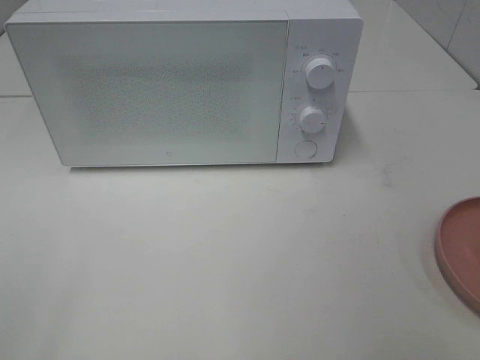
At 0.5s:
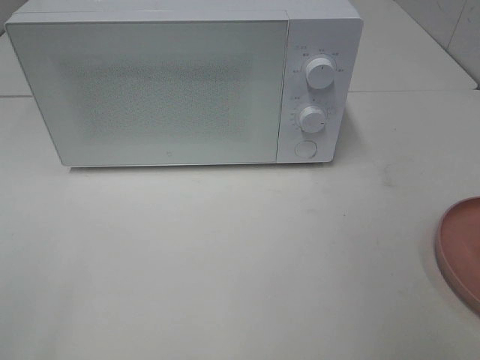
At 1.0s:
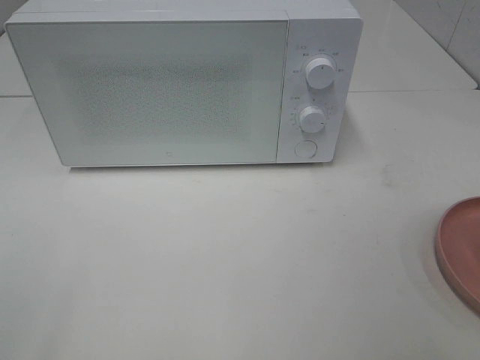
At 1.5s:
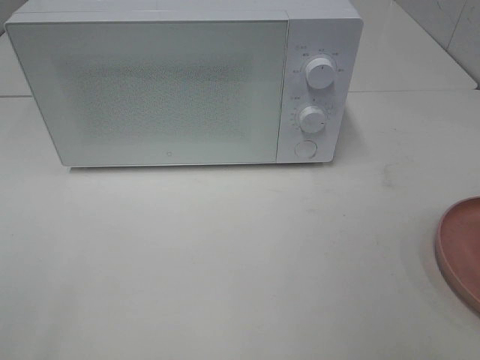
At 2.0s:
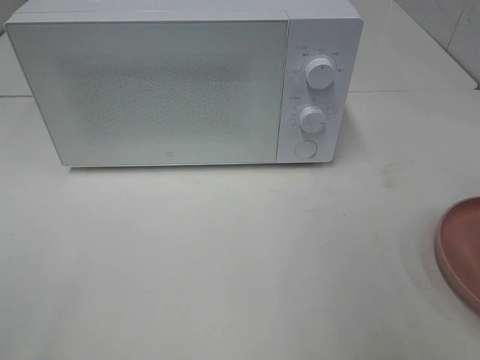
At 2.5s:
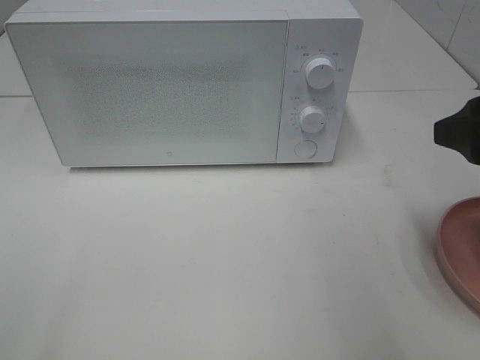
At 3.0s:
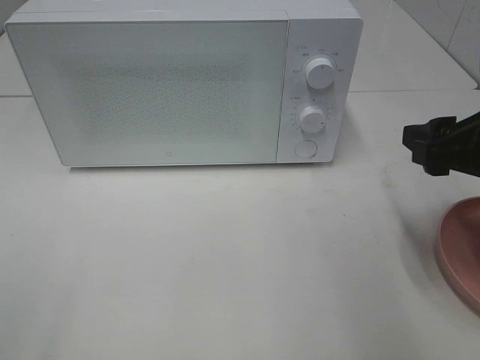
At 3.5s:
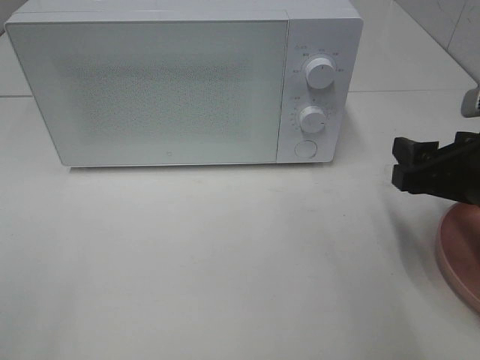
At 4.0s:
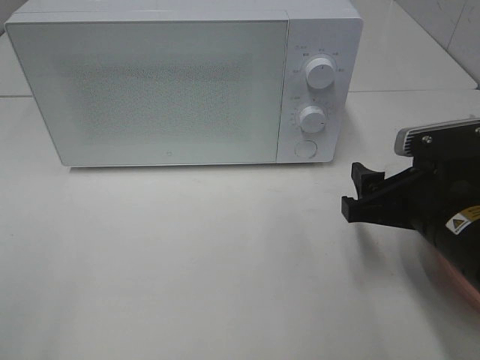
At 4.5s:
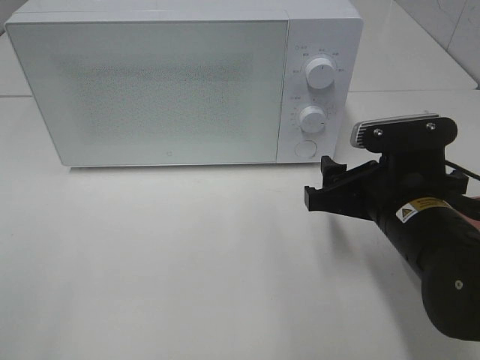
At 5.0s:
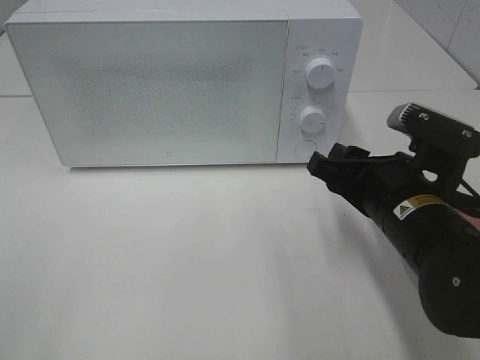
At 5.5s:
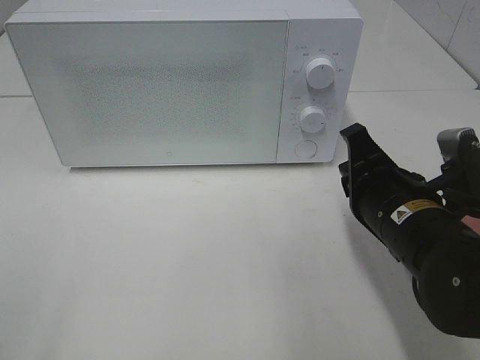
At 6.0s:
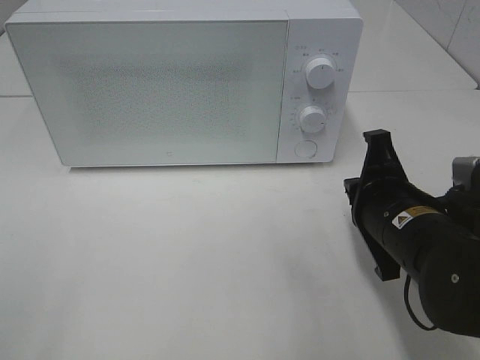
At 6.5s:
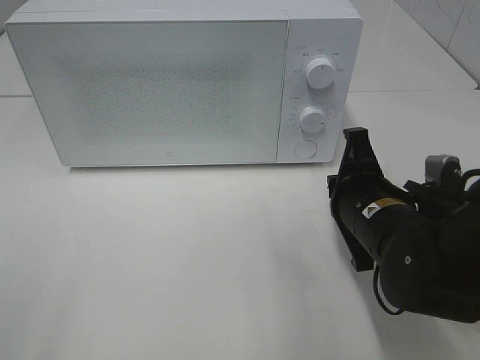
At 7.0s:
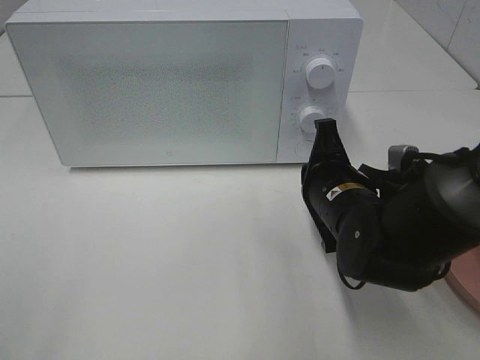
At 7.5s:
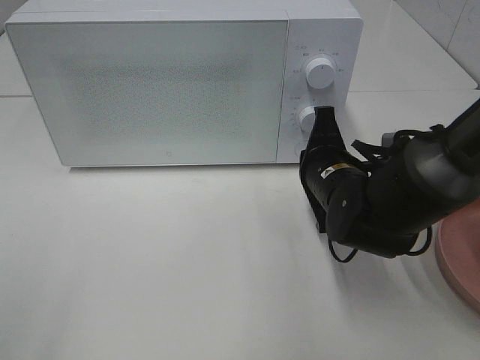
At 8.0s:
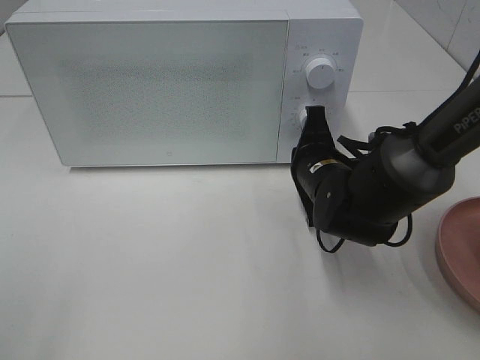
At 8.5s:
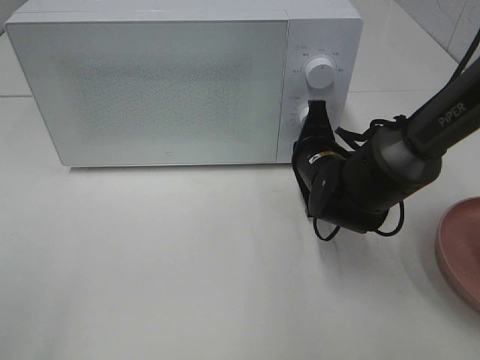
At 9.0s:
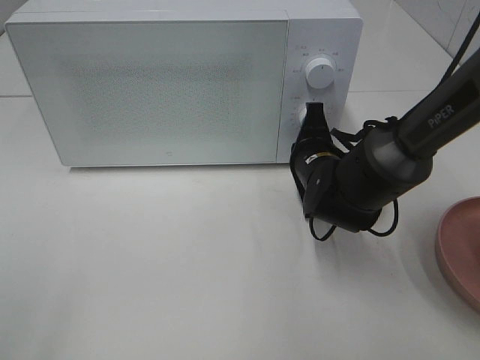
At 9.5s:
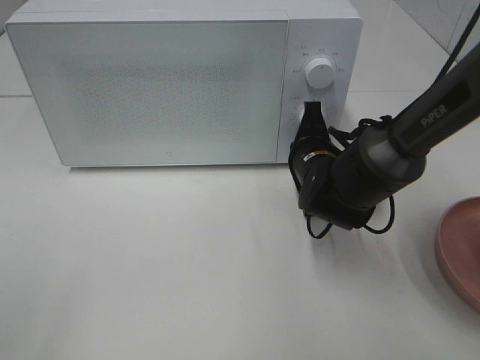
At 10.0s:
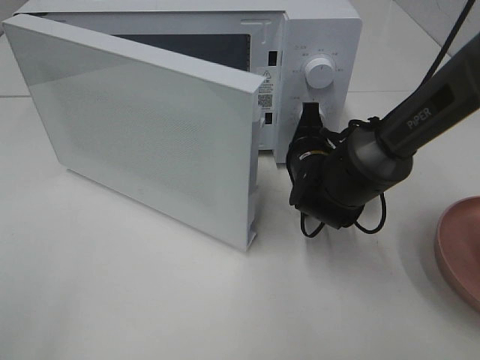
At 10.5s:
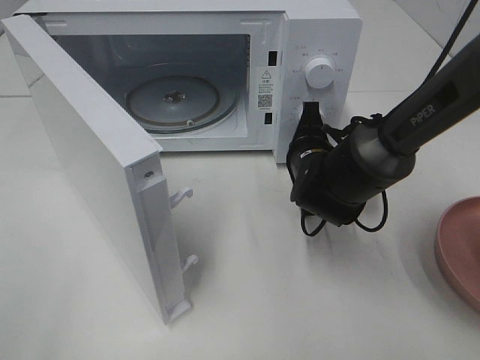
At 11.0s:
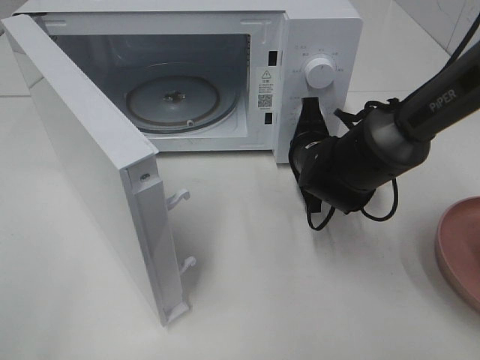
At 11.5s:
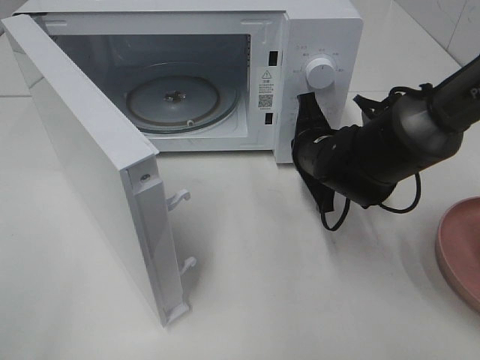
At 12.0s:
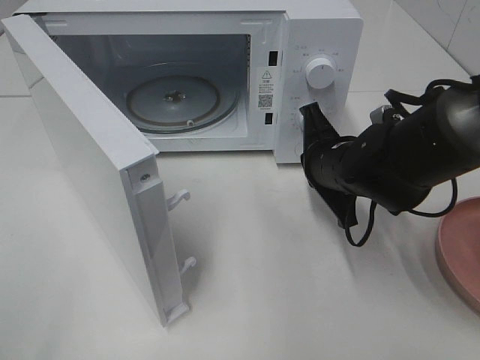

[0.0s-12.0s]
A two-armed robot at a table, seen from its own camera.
Task of the whole recording: Heat the burger.
Step, 0.0s to 11.5s: Right hand: press the switch.
2.0s to 4.0s: The right gripper shifts about 20 cm downward, forward and to the left.
4.0s to 6.0s: The right gripper closes up.
6.0s to 8.0s: The right gripper heads forward, covering roughly 10 cm.
10.0s to 12.0s: The right gripper ends up about 5 cm from where it was.

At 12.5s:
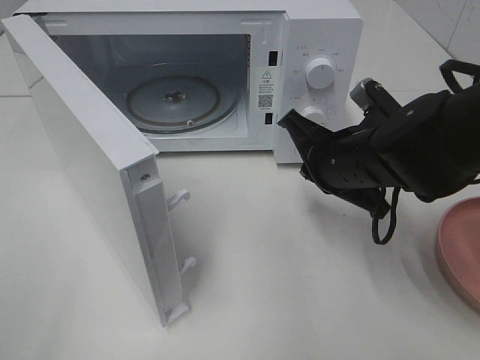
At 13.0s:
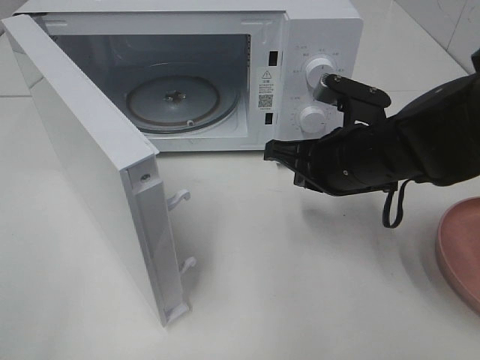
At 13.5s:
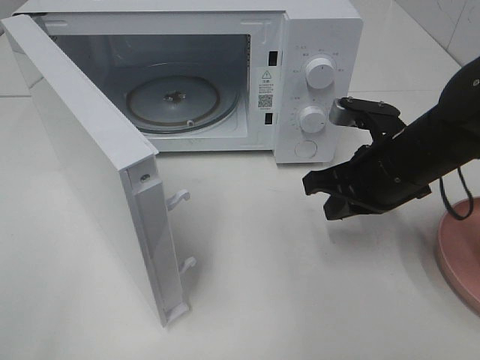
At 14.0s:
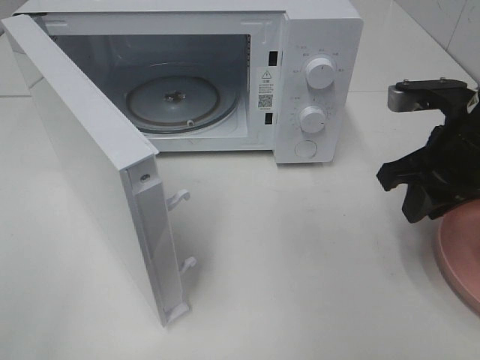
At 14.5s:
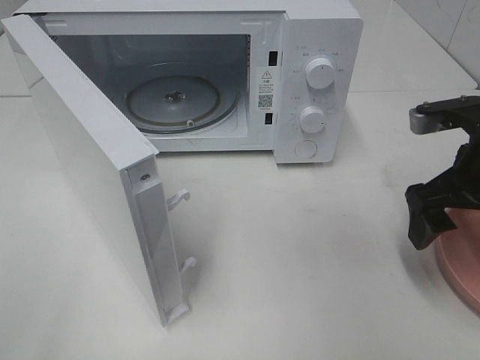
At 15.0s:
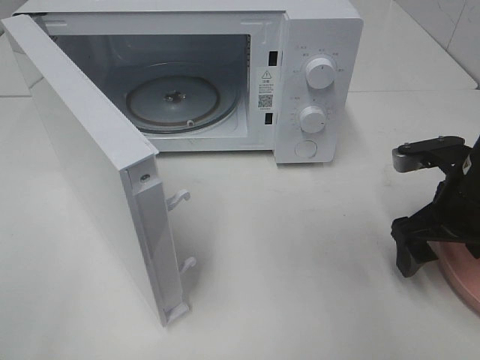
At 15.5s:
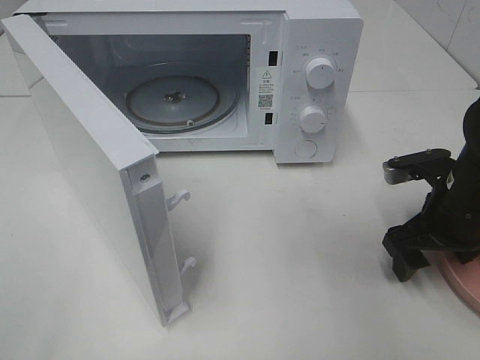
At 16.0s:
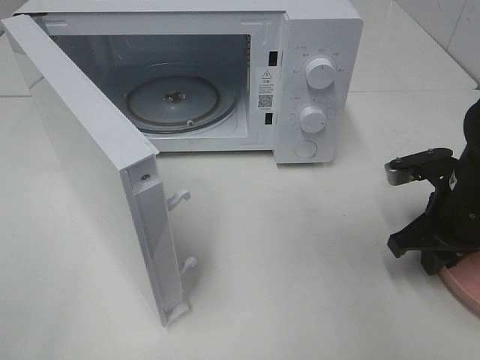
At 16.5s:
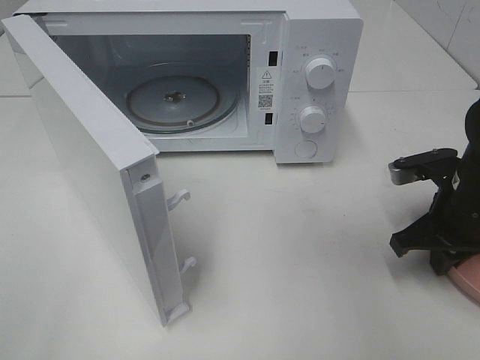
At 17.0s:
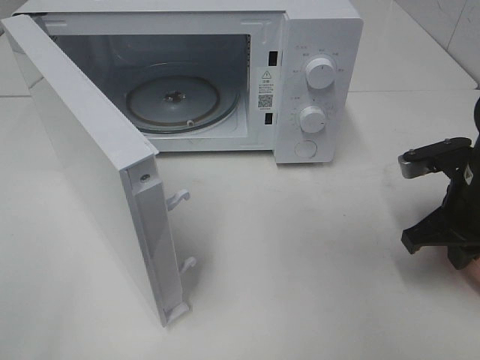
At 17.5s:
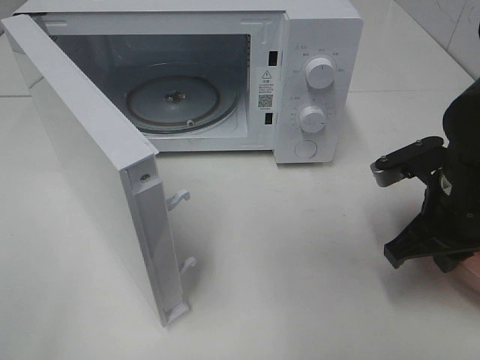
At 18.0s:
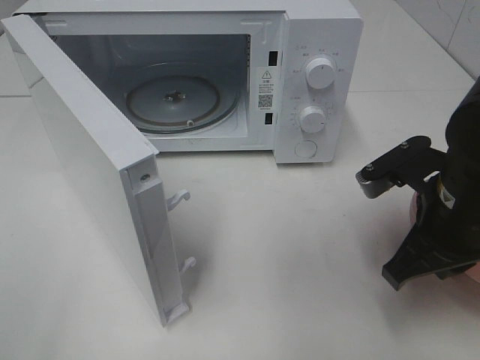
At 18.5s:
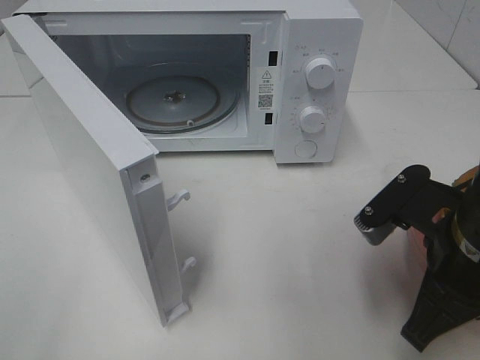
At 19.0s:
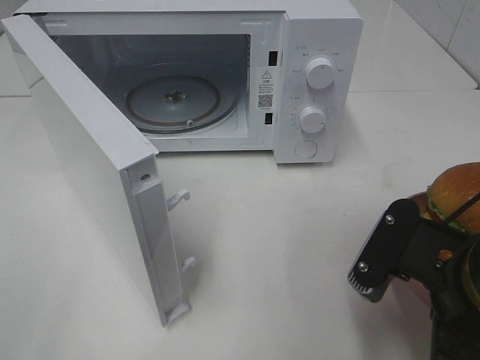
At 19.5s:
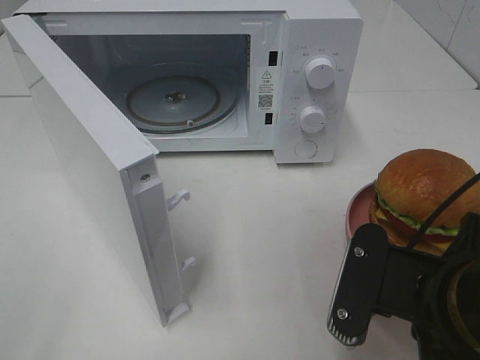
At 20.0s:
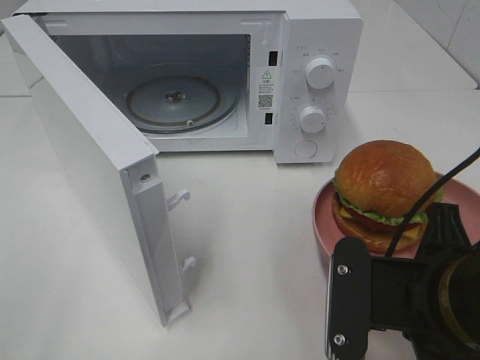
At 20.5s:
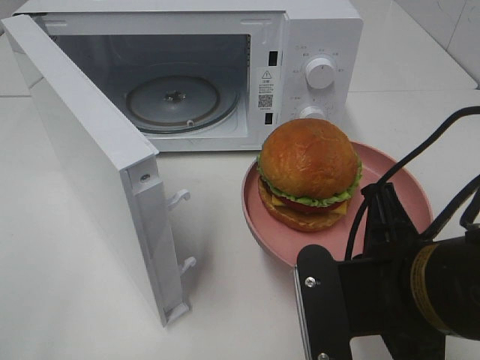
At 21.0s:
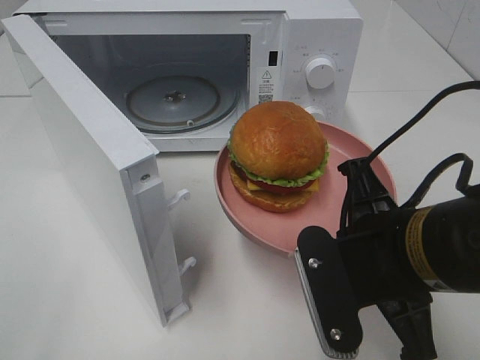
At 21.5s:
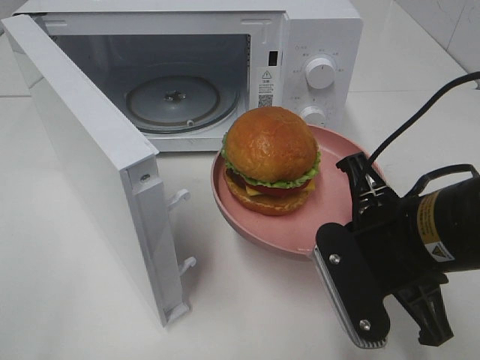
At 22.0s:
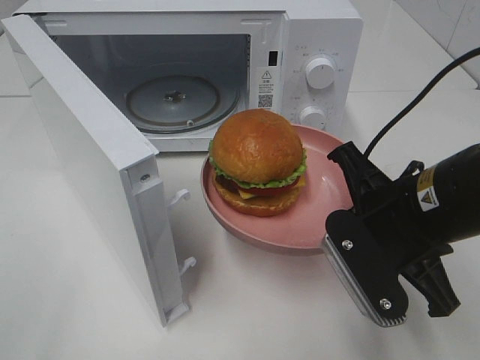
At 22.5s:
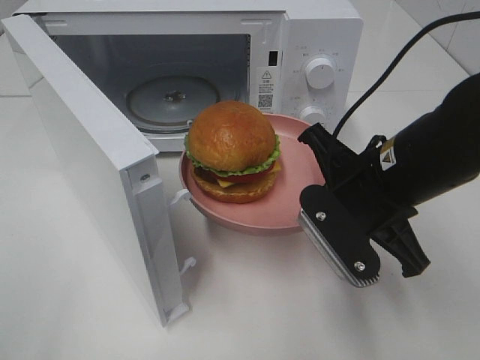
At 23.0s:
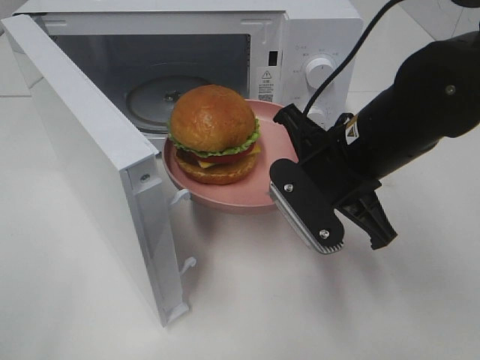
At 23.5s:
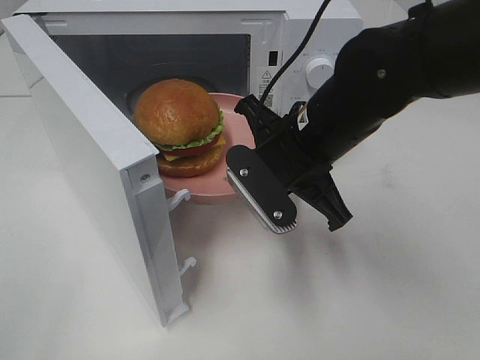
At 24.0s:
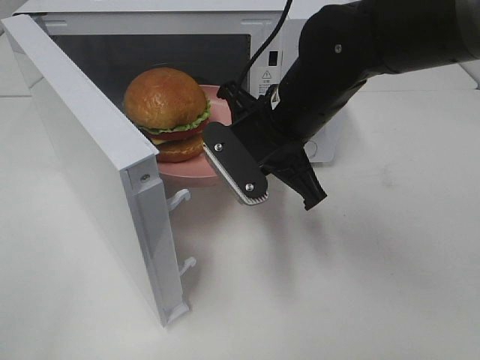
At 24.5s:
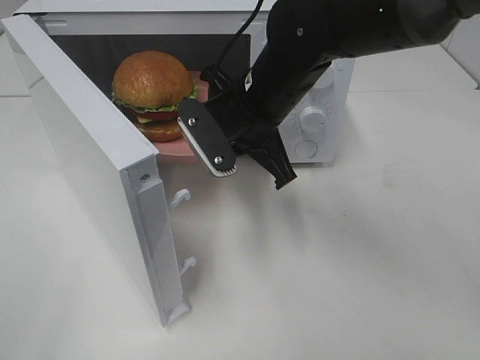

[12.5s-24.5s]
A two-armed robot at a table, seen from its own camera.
Task of the whole recording: Heat the burger.
Step, 12.5s to 16.5s: Right hand: grab the plate with the hamburger.
12.5s to 14.5s: The right gripper travels to the right by some 10 cm, and opens its fingers.
14.5s to 16.5s: The right gripper heads downward, covering approximately 10 cm, and closes its fingers.
16.5s to 18.5s: The right gripper travels backward, to the left and upward by approximately 15 cm.
18.5s to 20.5s: The right gripper travels to the left by approximately 5 cm.
20.5s to 22.5s: The right gripper heads forward, covering some 10 cm.
22.5s to 24.5s: The right gripper goes roughly 15 cm forward and to the left.

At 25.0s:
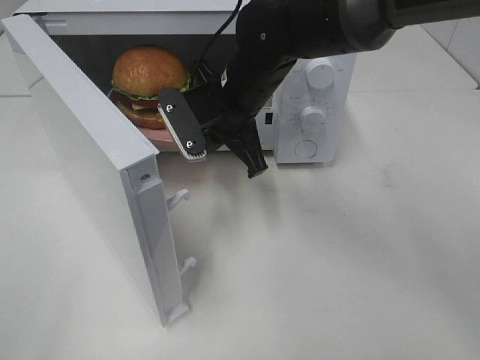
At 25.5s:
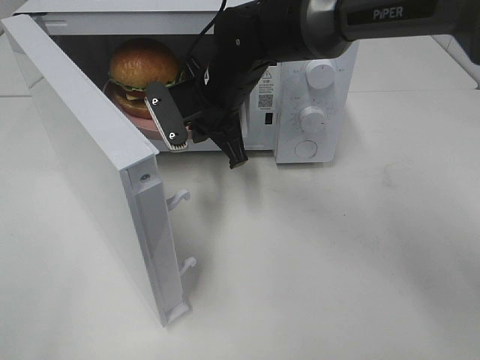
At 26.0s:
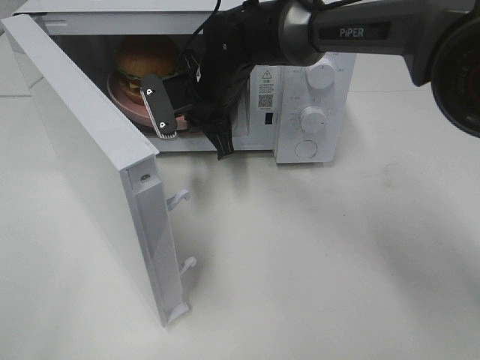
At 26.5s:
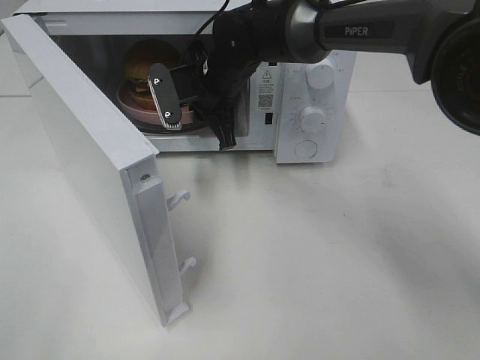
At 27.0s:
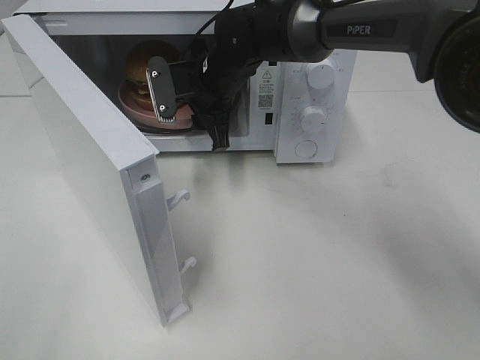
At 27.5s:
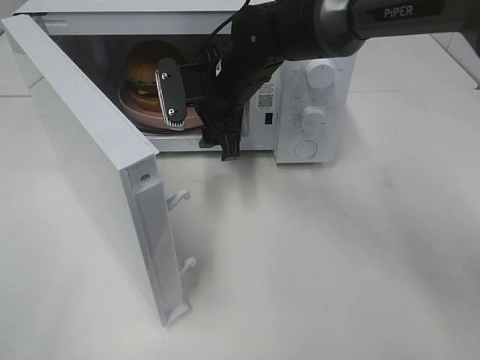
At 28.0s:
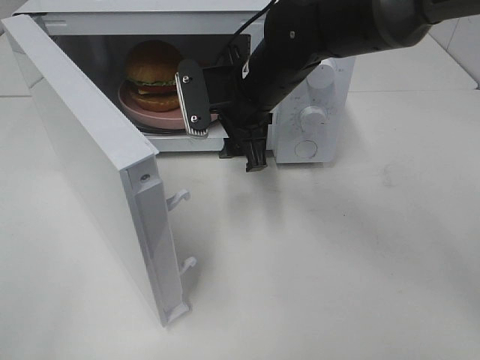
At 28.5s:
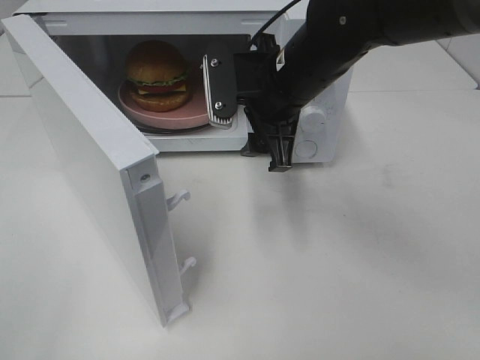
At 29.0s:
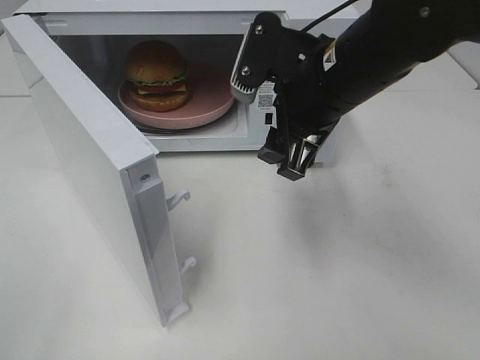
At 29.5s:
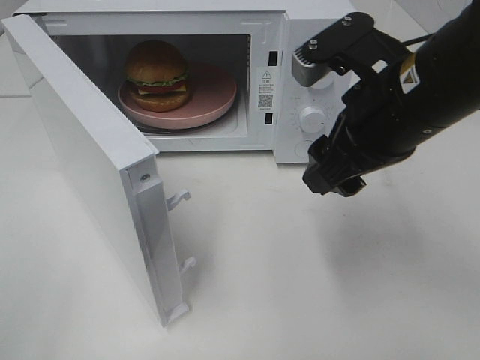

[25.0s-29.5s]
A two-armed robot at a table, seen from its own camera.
Task of the whole recording: Heat the burger.
25.0s to 27.0s: The right gripper travels forward by about 5 cm, and opens up.
27.0s to 29.5s: The right gripper heads backward, to the right and upward, covering about 25 cm.
